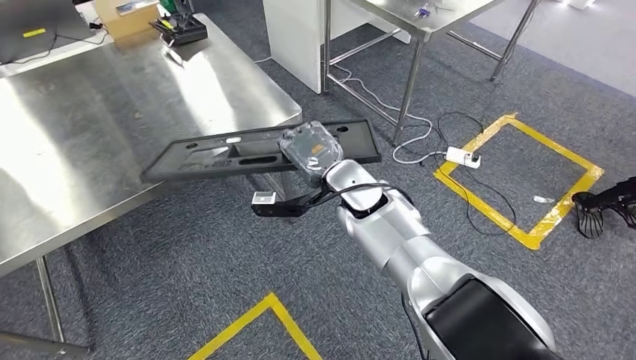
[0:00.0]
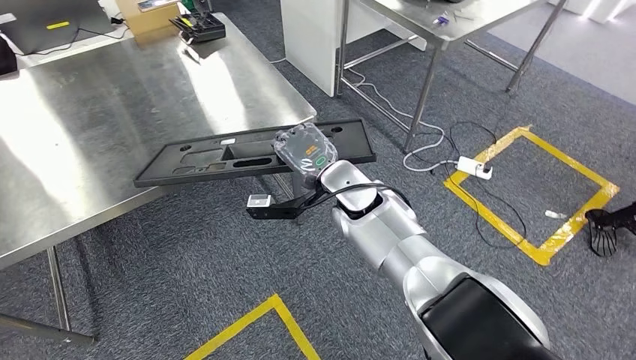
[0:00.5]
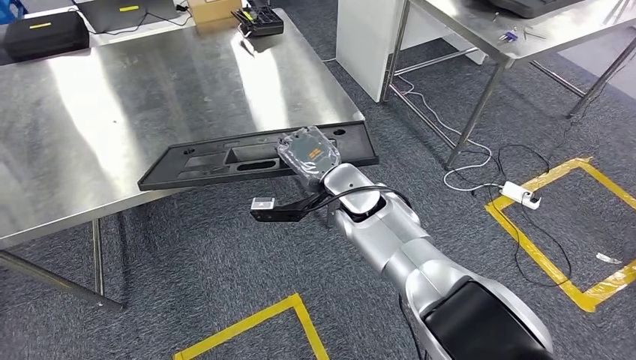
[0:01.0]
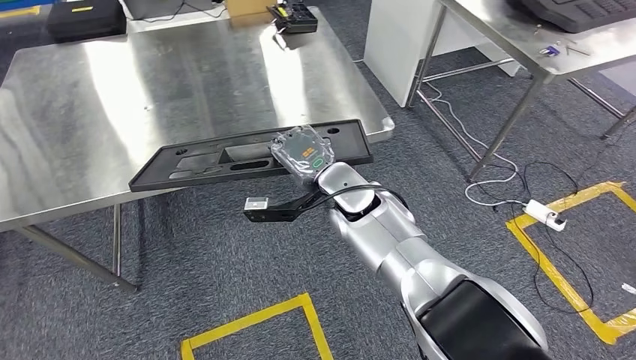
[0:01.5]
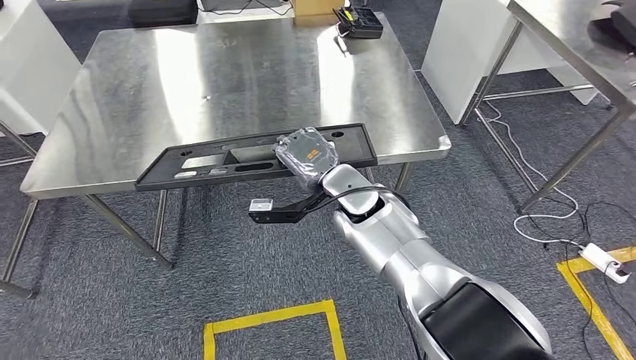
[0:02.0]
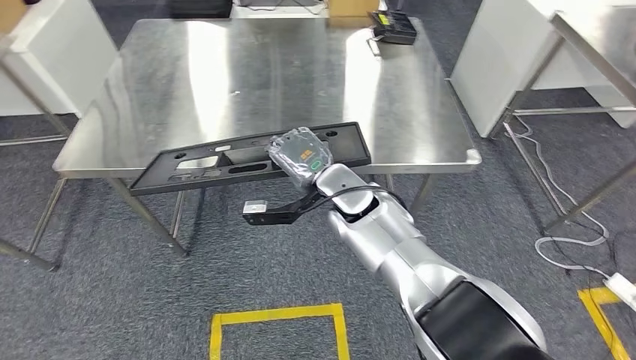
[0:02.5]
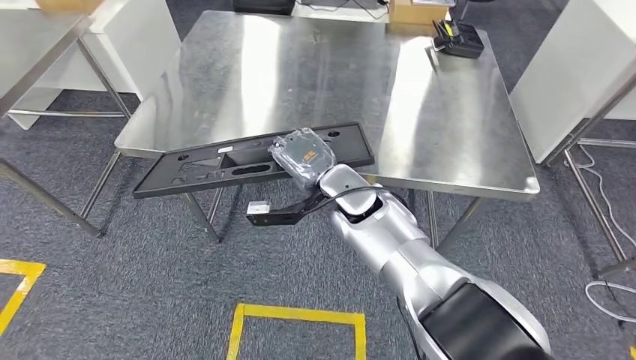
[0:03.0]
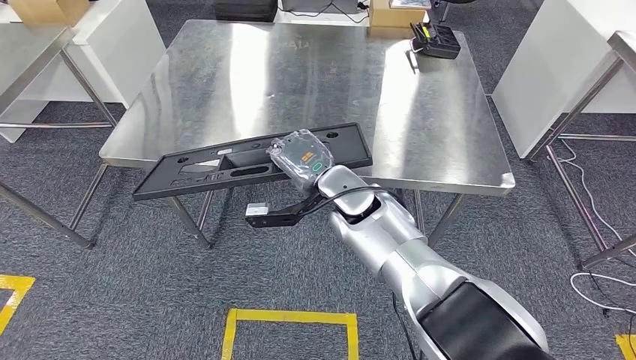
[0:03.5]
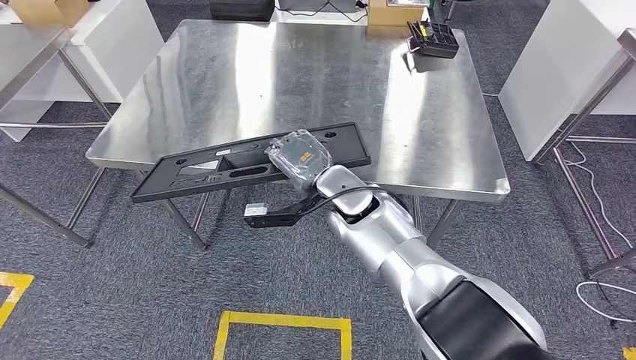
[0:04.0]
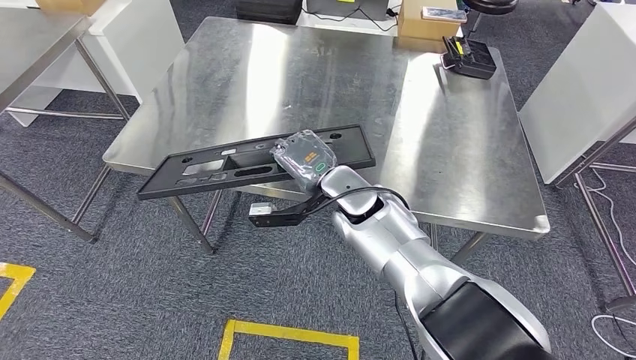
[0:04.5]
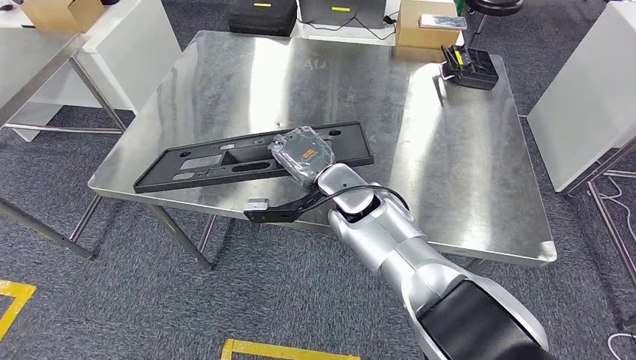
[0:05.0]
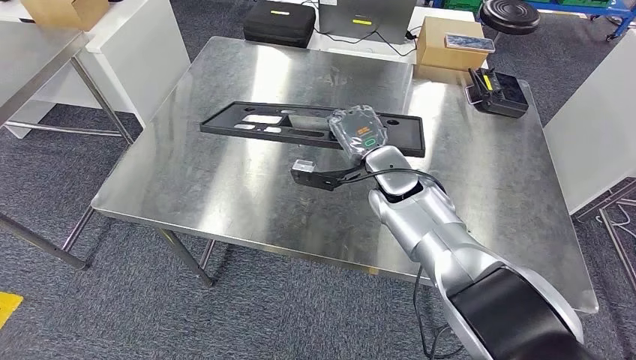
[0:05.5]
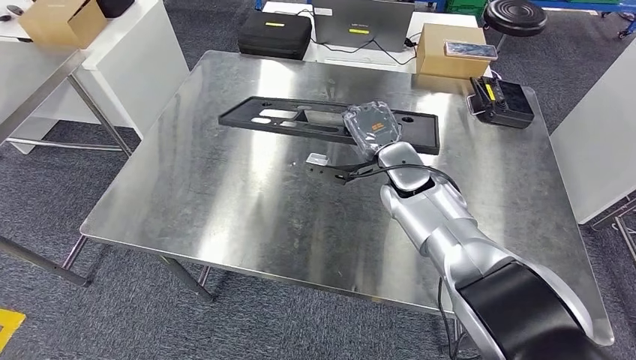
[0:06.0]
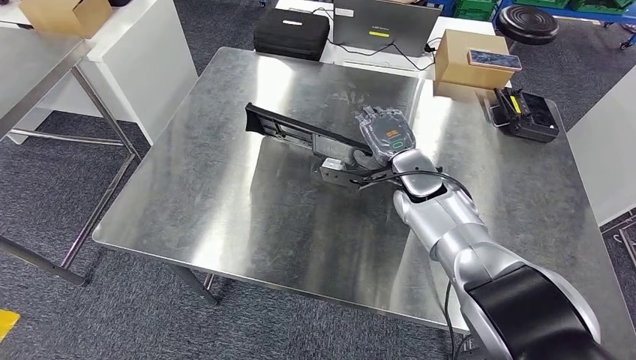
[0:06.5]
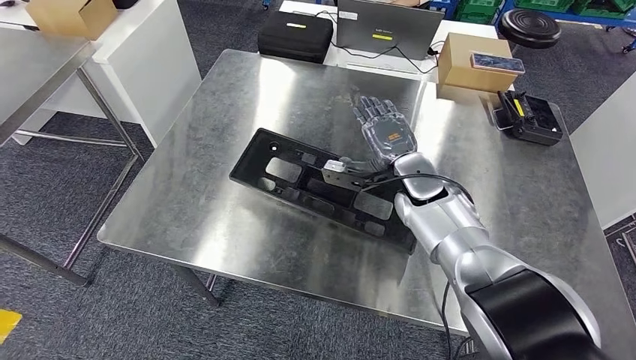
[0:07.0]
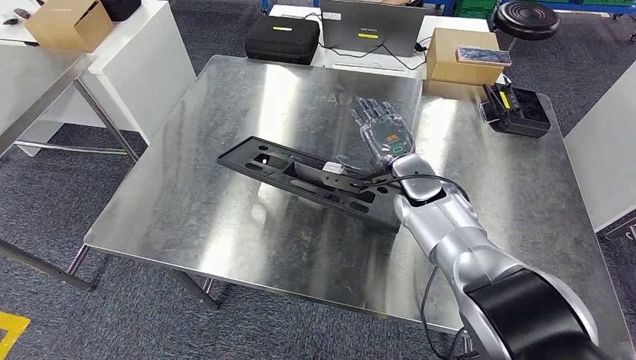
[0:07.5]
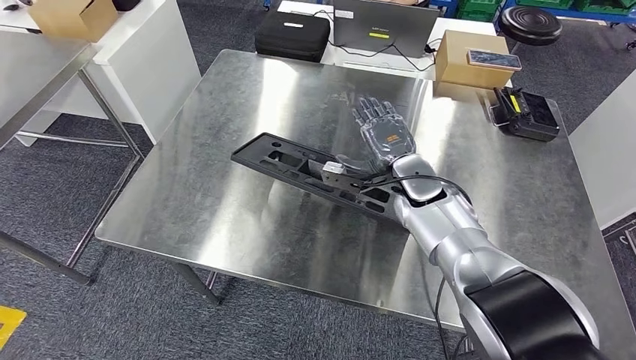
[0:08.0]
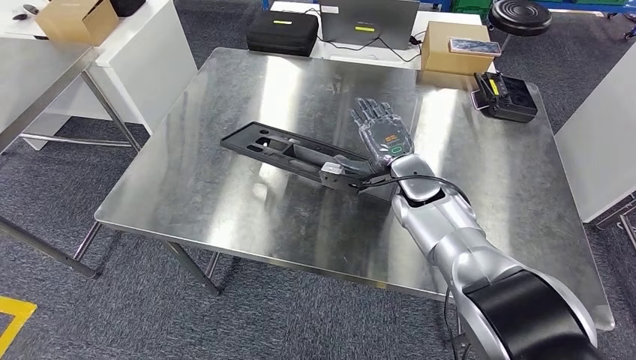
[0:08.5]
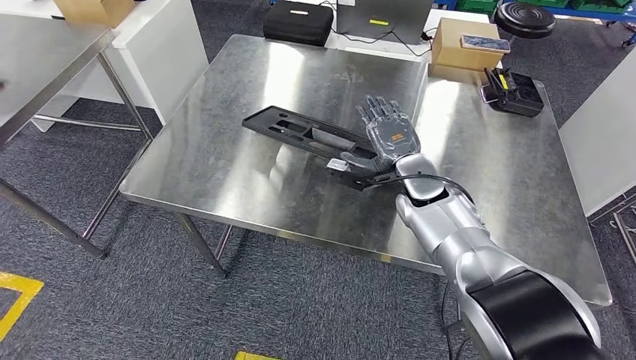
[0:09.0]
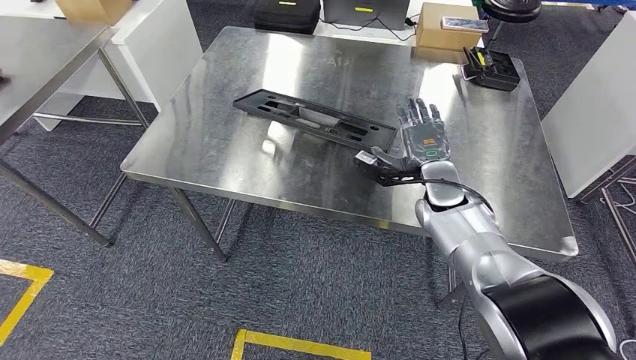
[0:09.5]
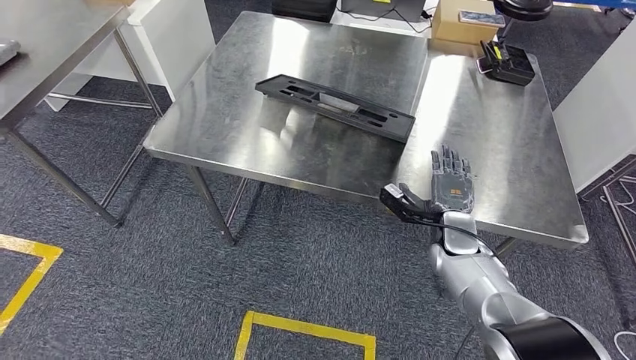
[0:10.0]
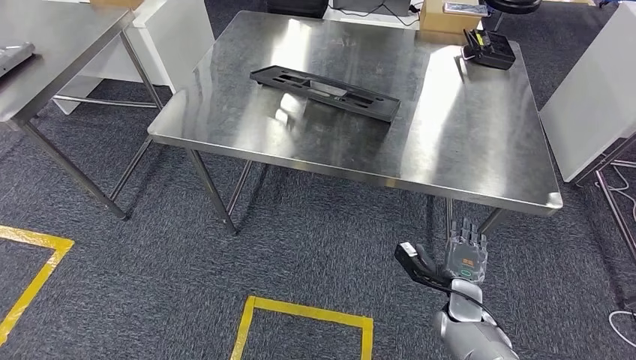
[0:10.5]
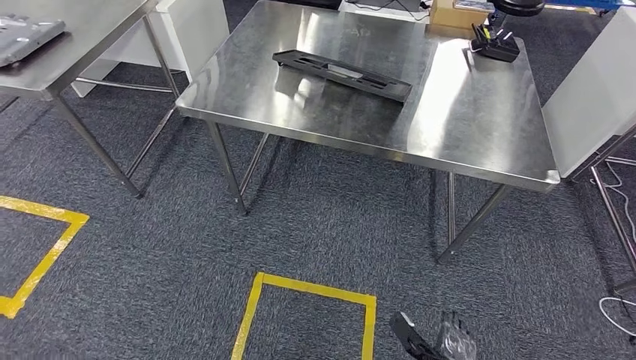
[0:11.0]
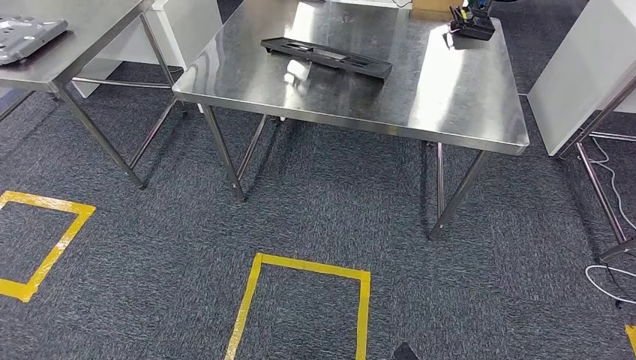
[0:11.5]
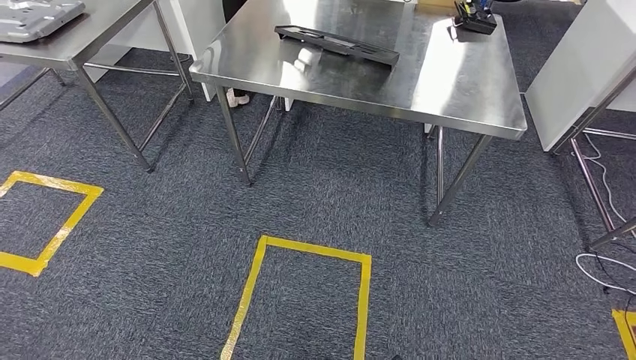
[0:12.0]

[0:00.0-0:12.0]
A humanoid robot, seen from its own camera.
Step, 0:00.0 to 0:11.5: Insert the large material into the corresponding hole on the workbench.

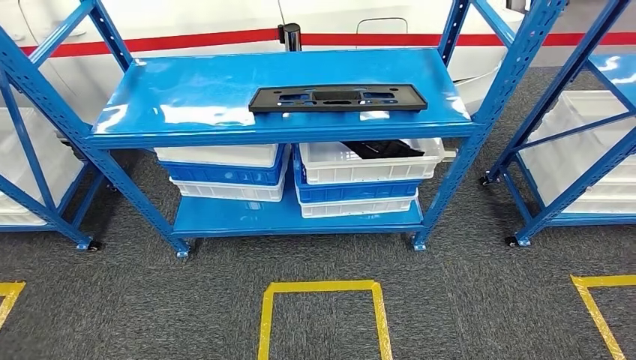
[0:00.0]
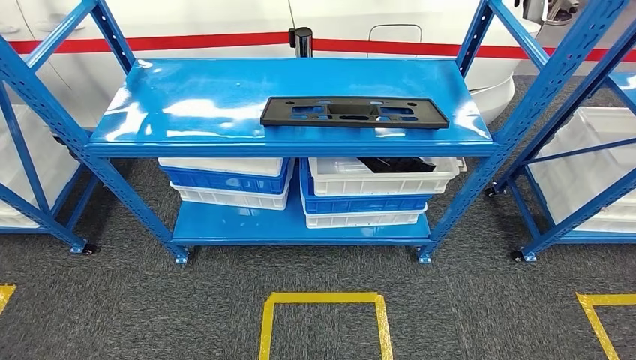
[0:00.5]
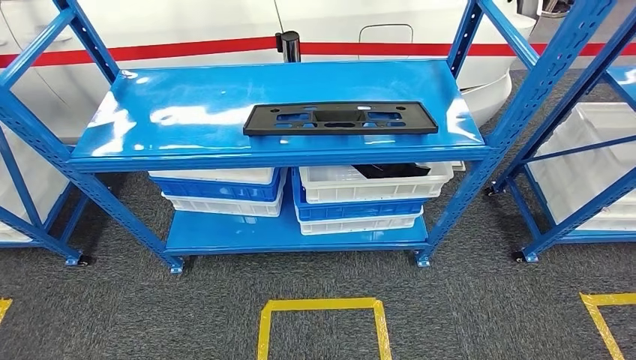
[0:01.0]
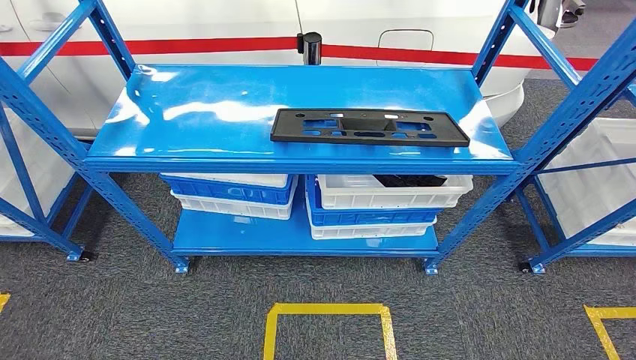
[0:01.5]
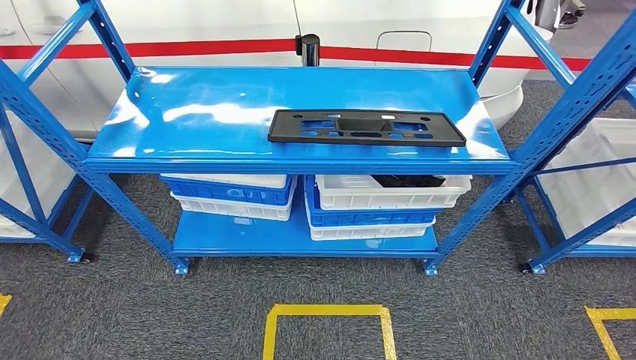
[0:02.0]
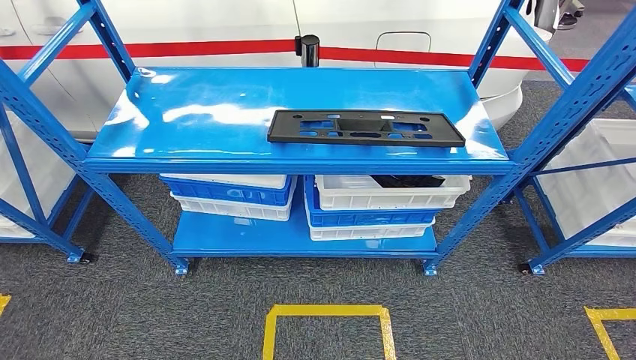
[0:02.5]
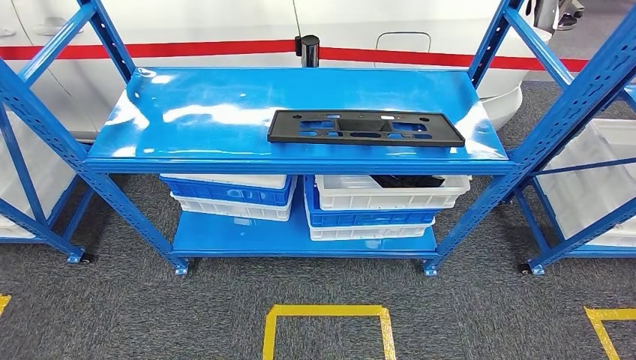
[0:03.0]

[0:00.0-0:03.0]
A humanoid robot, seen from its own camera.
Step, 0:00.0 to 0:02.5: Move to the initial position of the shelf.
0:01.5 to 0:03.0: The right hand shifts roughly 10 cm backward.
